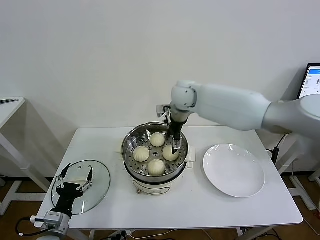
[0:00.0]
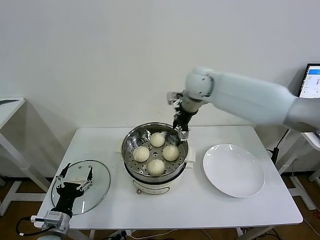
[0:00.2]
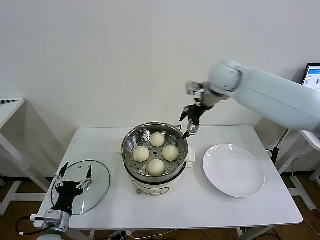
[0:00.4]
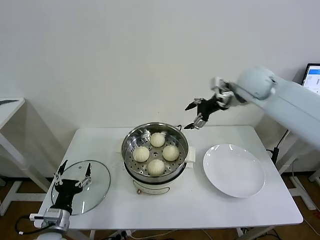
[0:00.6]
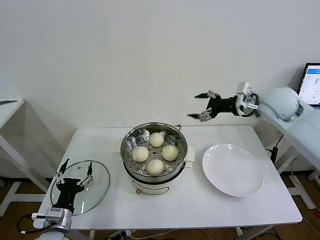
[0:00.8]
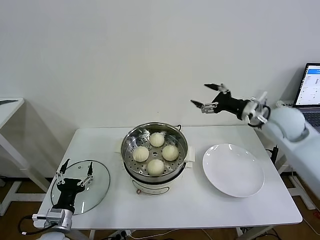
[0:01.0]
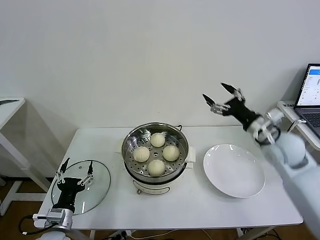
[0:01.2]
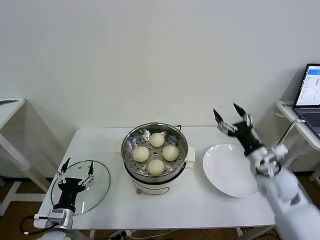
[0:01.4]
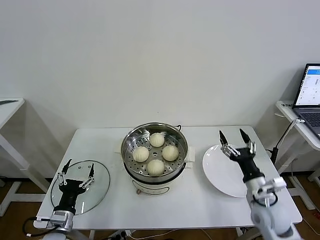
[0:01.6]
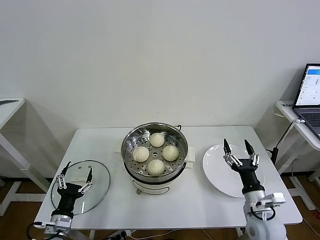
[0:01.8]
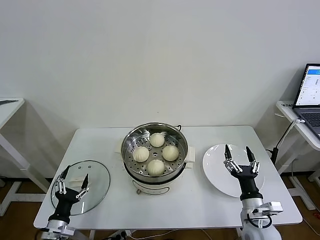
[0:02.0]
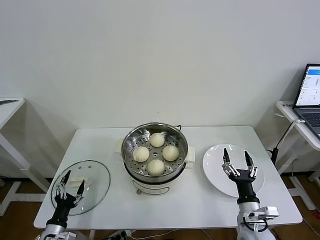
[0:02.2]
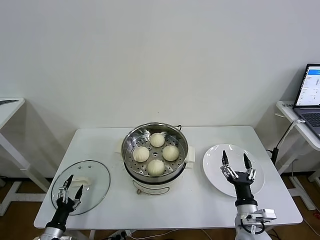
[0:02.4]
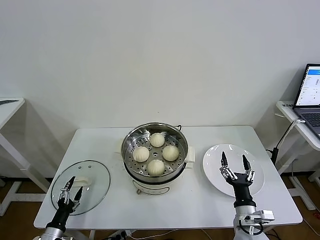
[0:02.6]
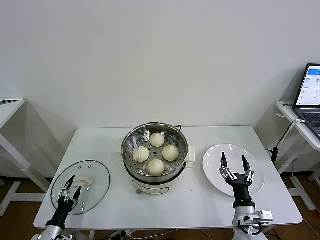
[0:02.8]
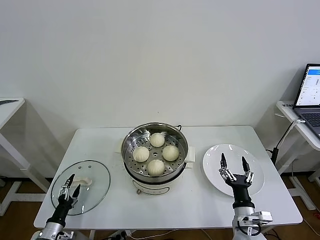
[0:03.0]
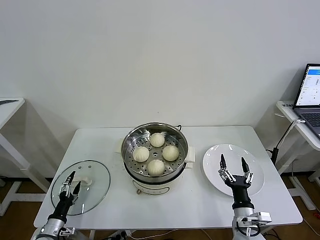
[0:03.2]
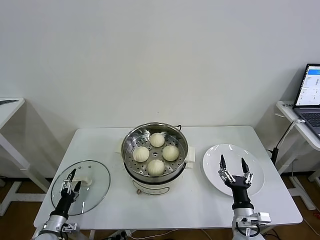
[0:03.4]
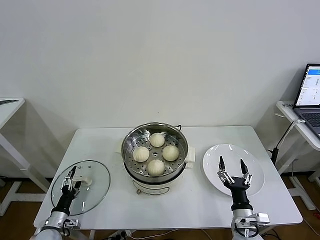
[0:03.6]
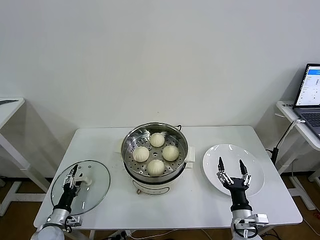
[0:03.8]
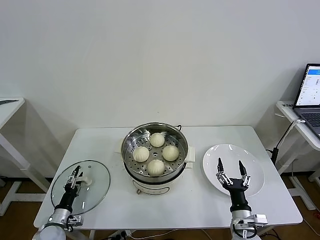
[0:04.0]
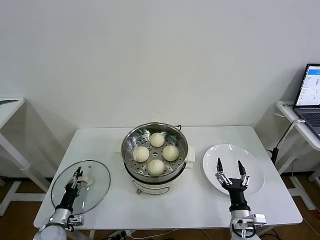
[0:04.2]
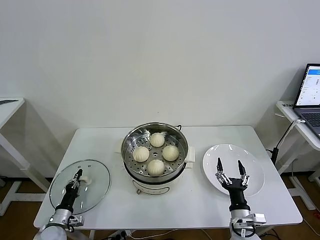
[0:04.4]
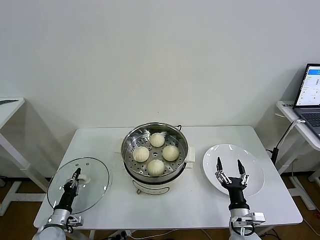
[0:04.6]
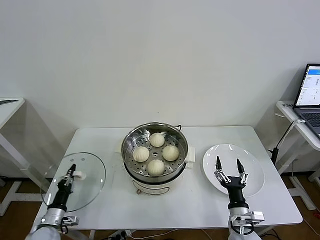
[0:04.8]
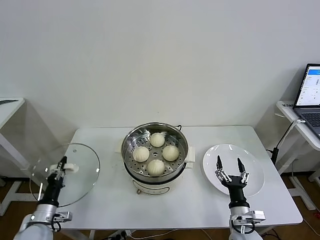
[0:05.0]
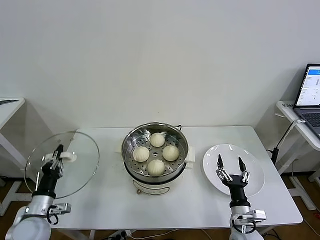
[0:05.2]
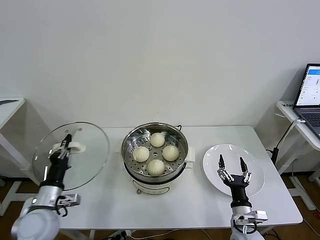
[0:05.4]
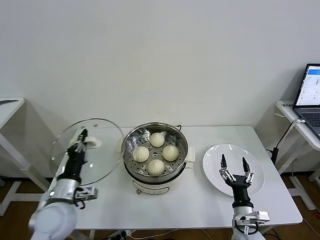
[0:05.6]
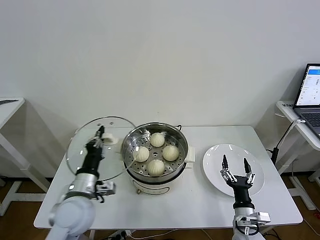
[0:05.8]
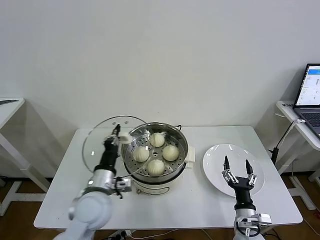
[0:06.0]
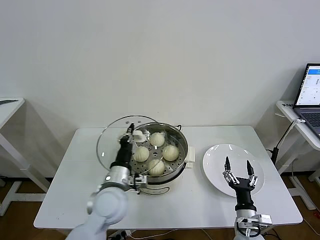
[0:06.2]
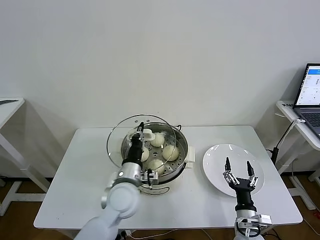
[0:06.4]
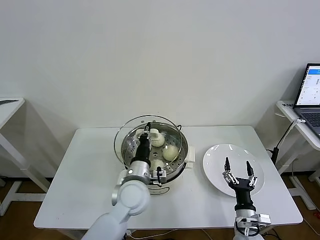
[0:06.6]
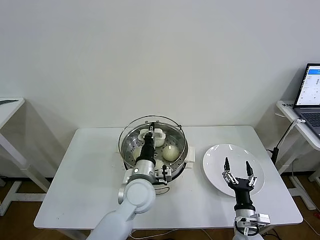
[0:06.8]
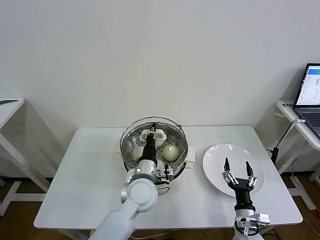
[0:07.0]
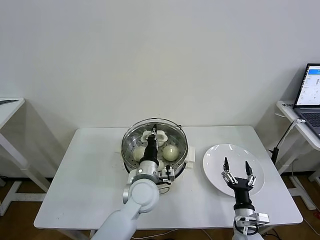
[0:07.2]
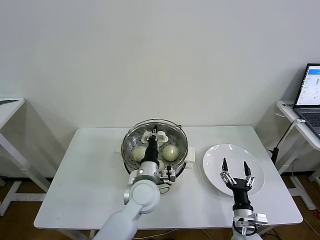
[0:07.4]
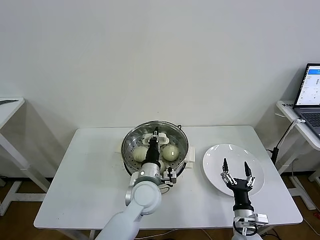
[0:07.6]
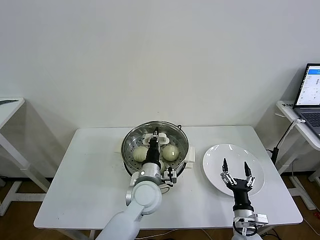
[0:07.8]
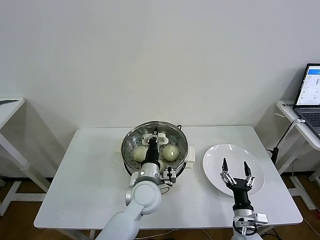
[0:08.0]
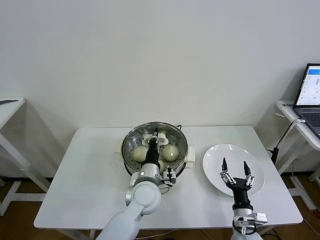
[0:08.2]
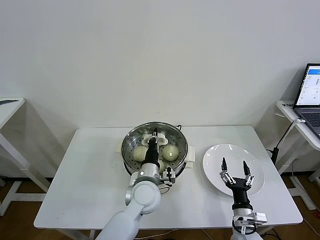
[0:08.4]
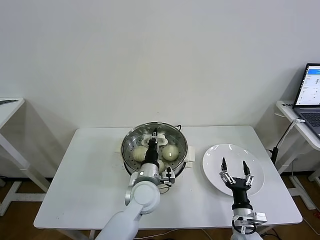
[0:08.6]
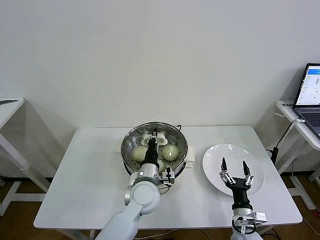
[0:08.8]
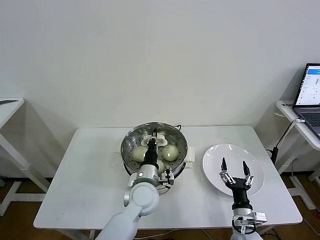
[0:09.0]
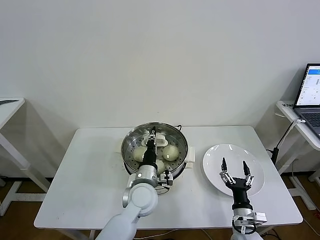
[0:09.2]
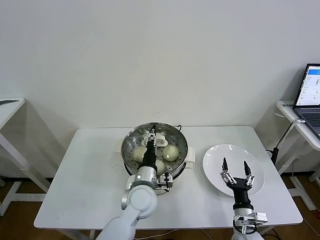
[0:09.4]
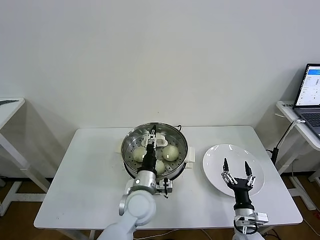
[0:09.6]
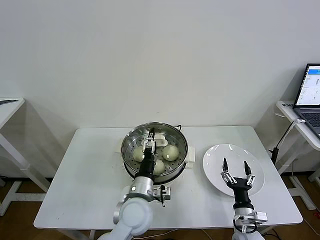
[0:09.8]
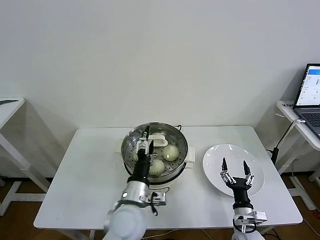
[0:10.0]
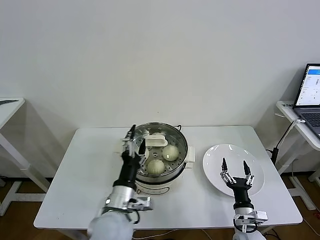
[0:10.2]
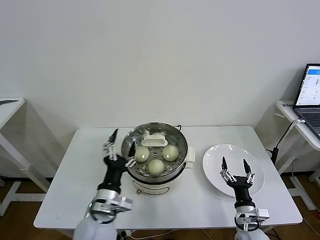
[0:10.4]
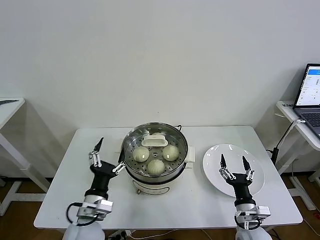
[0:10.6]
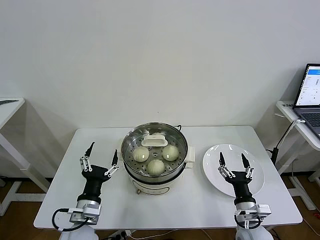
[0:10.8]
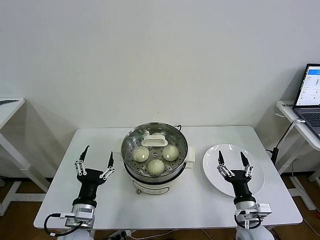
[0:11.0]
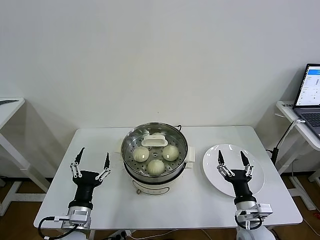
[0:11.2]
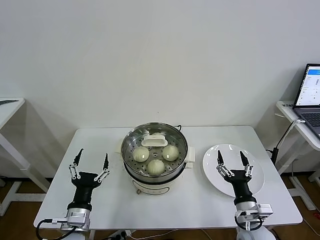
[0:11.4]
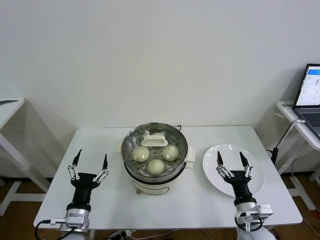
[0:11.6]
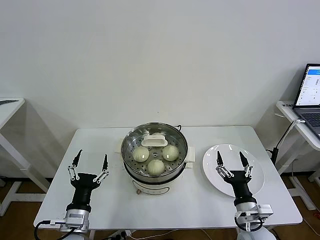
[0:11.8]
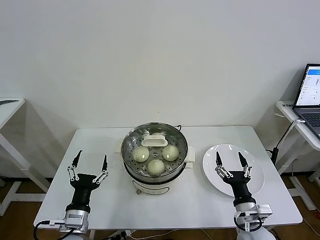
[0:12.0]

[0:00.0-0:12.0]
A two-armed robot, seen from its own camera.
Task of the whole recording: take steamed baozi put them in steamer then cover it.
Step, 0:00.0 to 0:04.4: Grasp the pot lid with left gripper.
Step, 0:04.6 to 0:09.8: Place the pot lid on the steamer with left gripper.
0:00.0 to 0:01.6: The right gripper moves backward, to the right and downward, some 40 cm.
0:01.6 to 0:03.0: The left gripper is displaced downward and to the left by some 15 cm; the right gripper moves downward, backward and to the left, roughly 10 cm.
0:03.0 to 0:04.4: The left gripper is displaced forward by roughly 5 cm, and closes its fingers.
0:04.4 to 0:06.0: The left gripper moves upward and to the right, some 30 cm.
0:06.0 to 0:07.6: The left gripper moves to the right, some 15 cm.
0:07.6 to 0:09.0: There are only small adjustments of the grippers.
0:09.0 to 0:10.4: The left gripper heads backward and to the left, covering about 15 cm, and opens.
0:10.4 to 0:12.0: The right gripper goes approximately 5 cm upward; the left gripper travels to the left and downward by some 10 cm.
